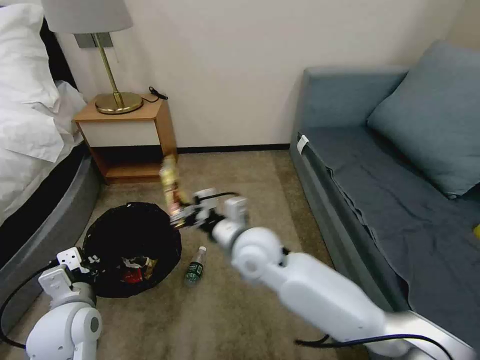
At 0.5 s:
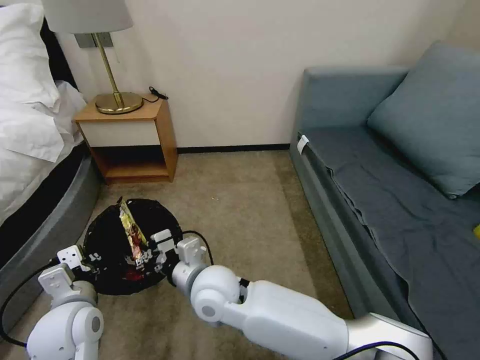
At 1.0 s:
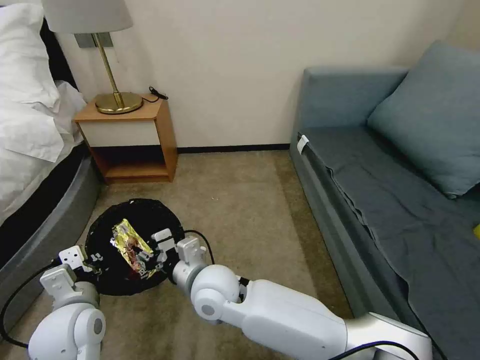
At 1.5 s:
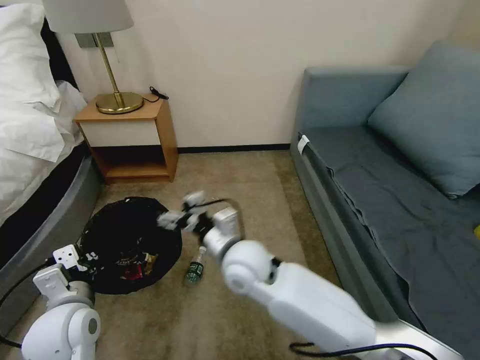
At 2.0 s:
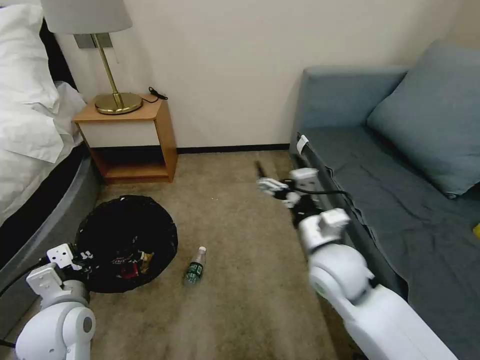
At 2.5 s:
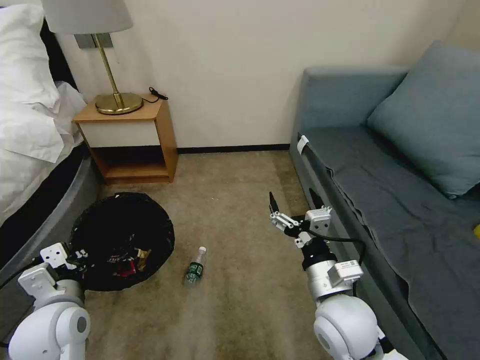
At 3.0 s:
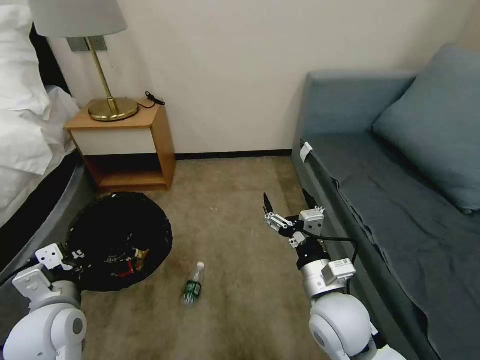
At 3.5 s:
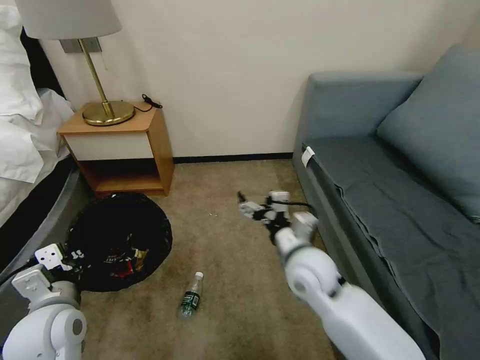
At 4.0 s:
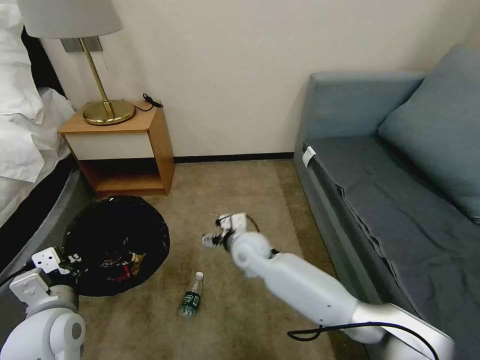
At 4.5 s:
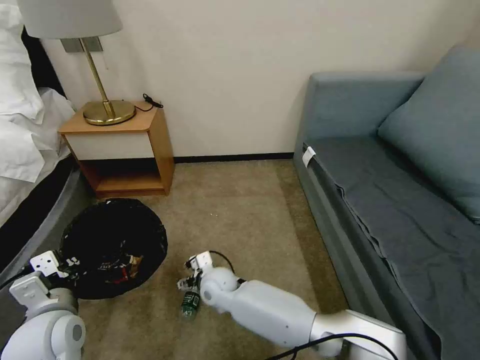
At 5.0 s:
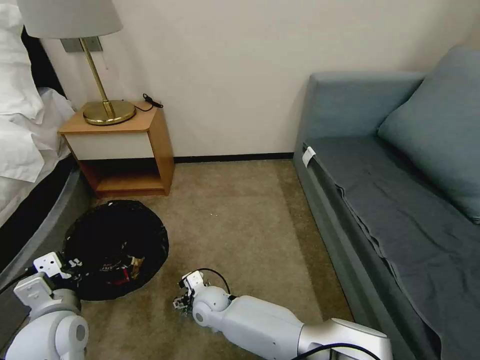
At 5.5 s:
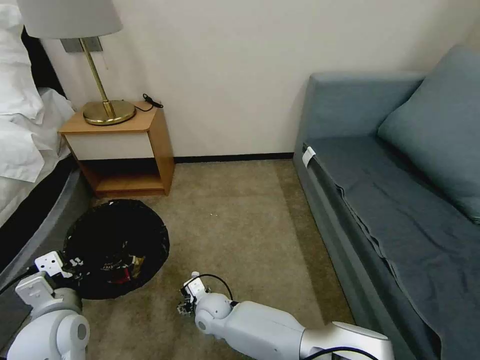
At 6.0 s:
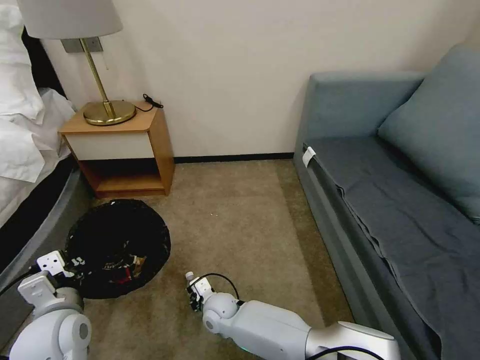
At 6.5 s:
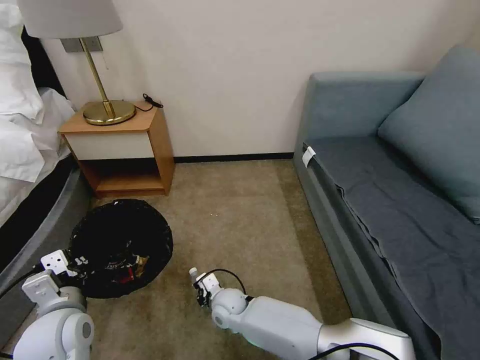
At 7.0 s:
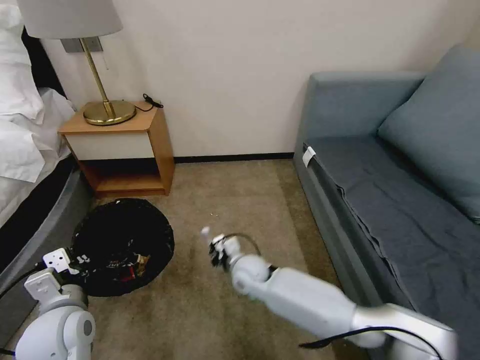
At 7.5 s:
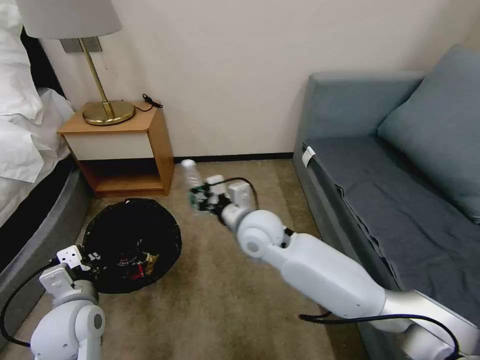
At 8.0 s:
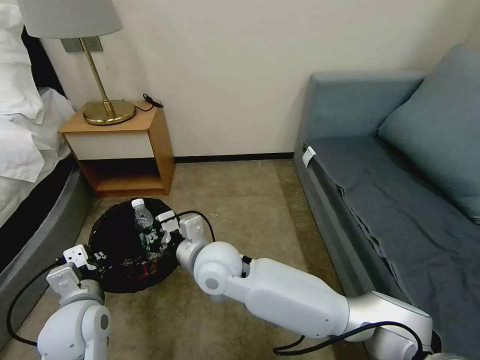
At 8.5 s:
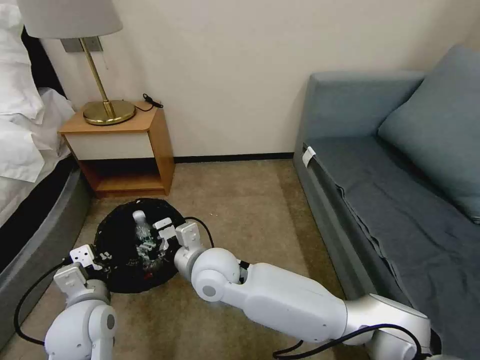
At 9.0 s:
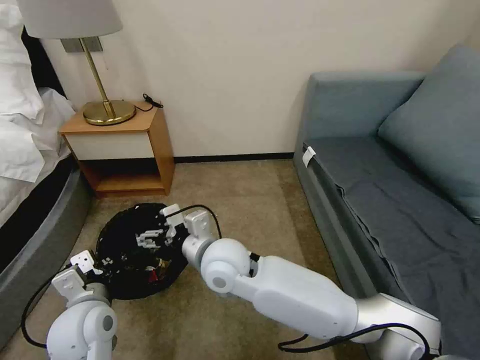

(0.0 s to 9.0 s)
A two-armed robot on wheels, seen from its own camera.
Task of the whole recording: Pick up the trash bin, then pick up the garbage on the floor and place it into the trash bin.
0.0 s - 2.0 s: The right gripper shifts roughly 15 cm to the right and backward, and opens up.
2.0 s - 4.5 s: The right gripper travels to the left and downward by roughly 30 cm.
4.5 s - 7.0 s: The right gripper moves to the right, approximately 10 cm, and closes.
7.0 s - 9.0 s: The right gripper shifts some 20 cm upward, and opens up.

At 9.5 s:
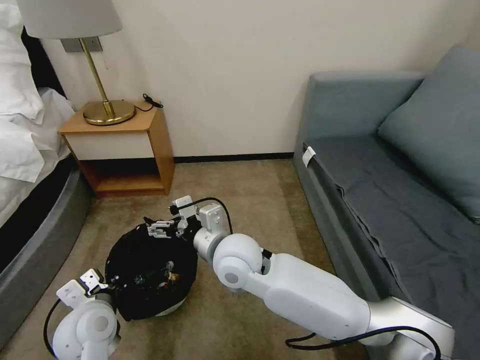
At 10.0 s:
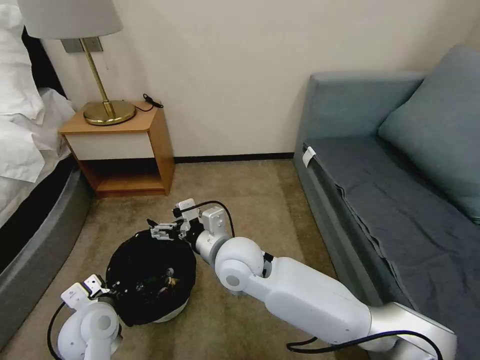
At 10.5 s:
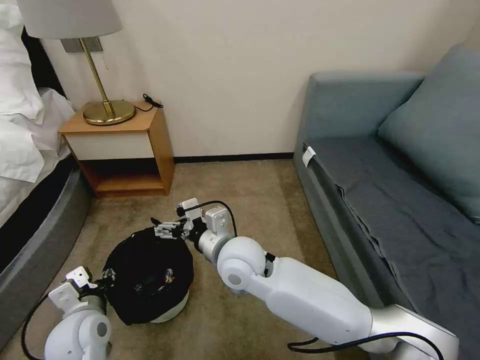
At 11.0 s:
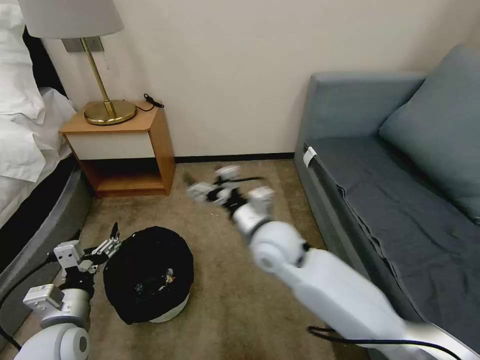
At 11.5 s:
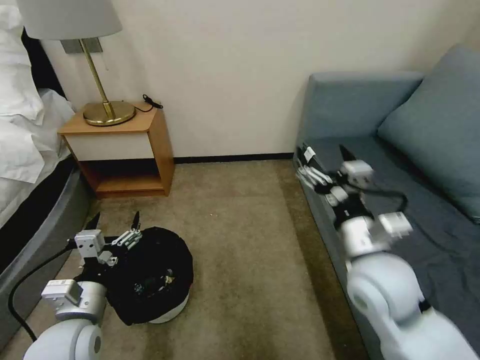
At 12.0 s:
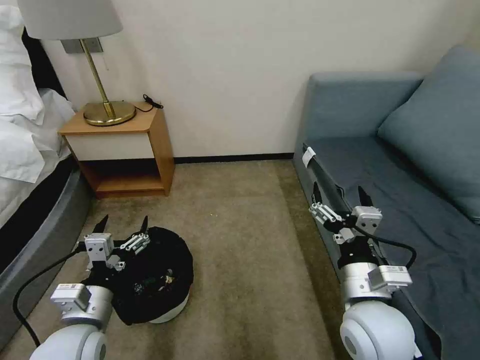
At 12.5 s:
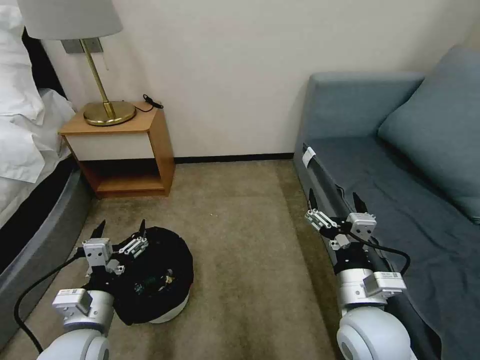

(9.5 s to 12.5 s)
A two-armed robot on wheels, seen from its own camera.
Task of the whole recording: Pick up the trash bin, then pick up the garbage on the floor and place it into the trash bin.
9.5 s - 11.0 s: The left gripper shifts by approximately 5 cm, and opens. Meanwhile the right gripper travels to the right by approximately 5 cm.
11.0 s - 12.5 s: The right gripper goes about 20 cm backward and to the right. The left gripper shifts approximately 5 cm to the right.

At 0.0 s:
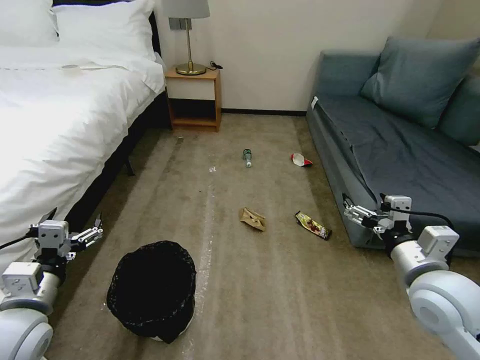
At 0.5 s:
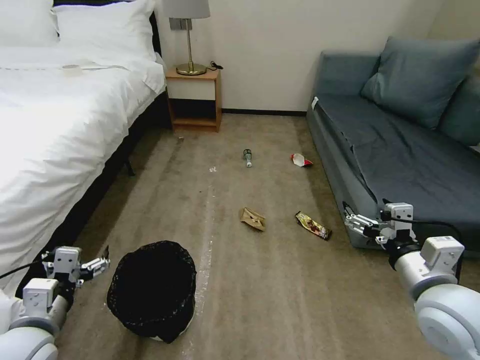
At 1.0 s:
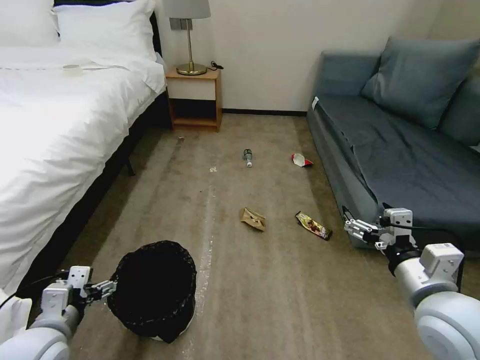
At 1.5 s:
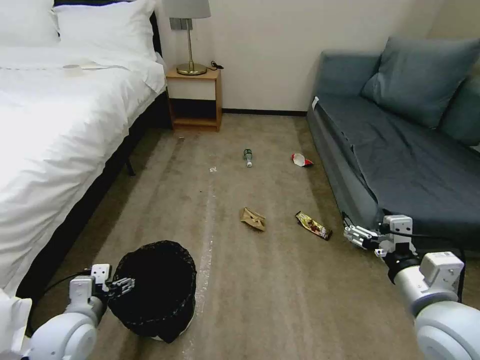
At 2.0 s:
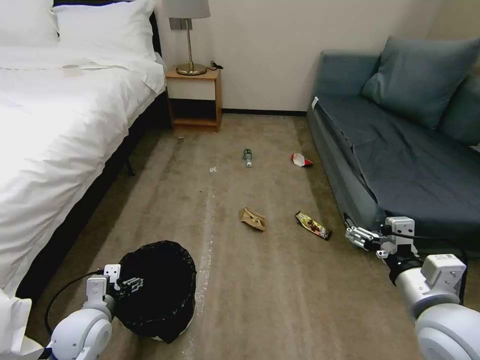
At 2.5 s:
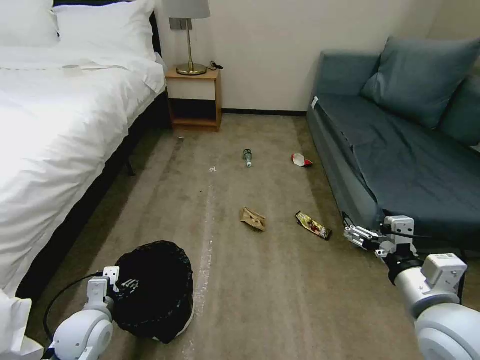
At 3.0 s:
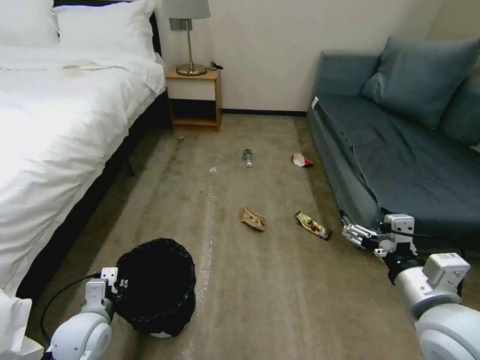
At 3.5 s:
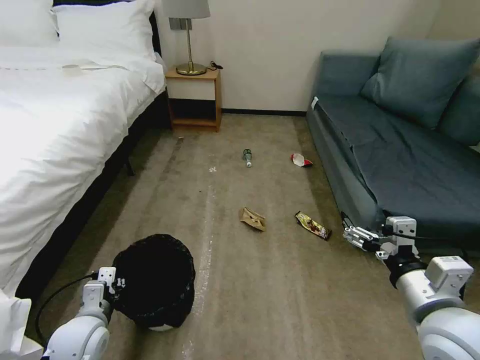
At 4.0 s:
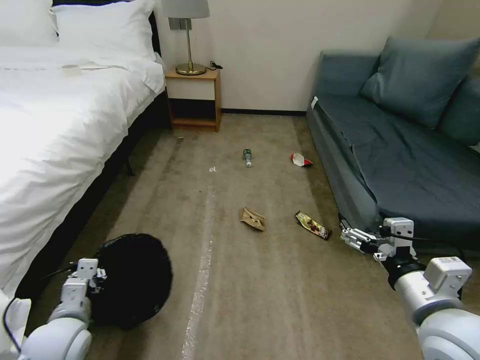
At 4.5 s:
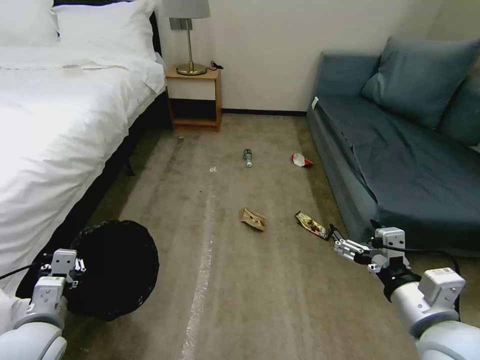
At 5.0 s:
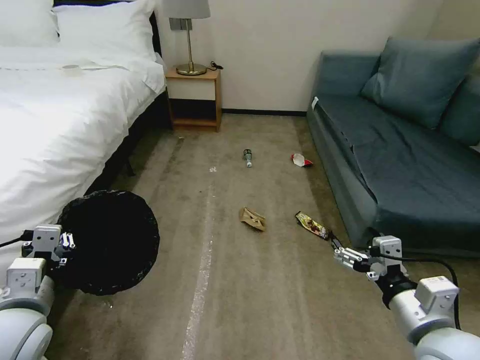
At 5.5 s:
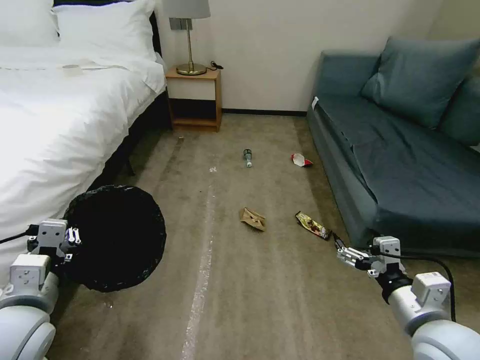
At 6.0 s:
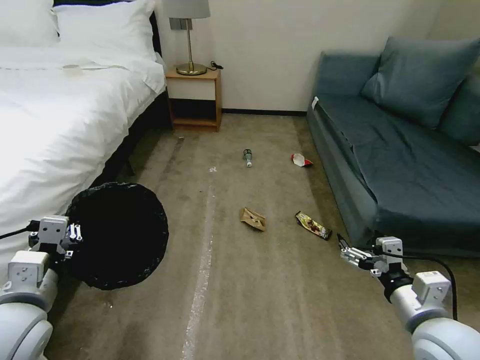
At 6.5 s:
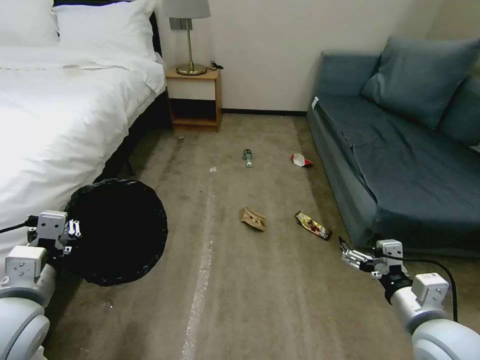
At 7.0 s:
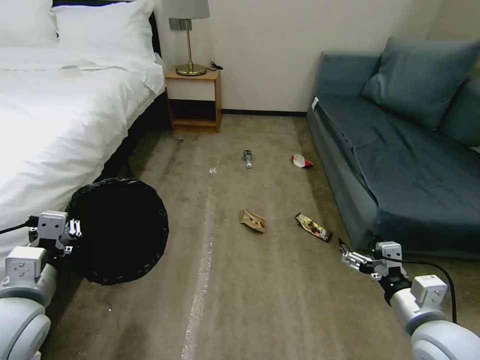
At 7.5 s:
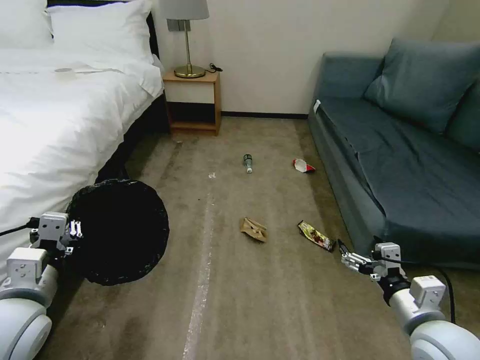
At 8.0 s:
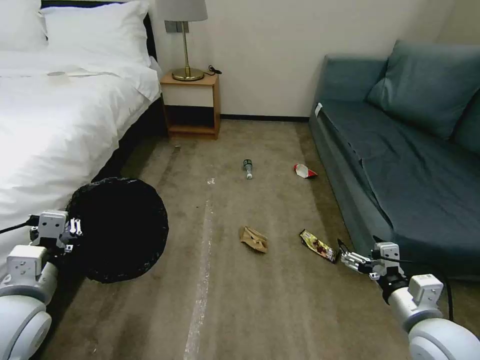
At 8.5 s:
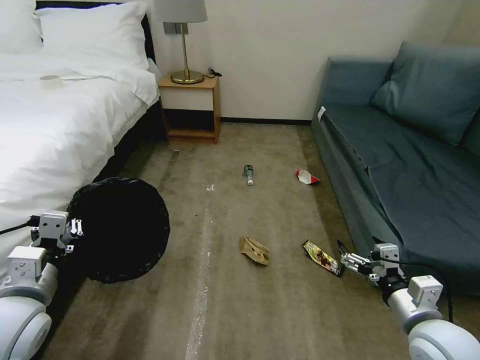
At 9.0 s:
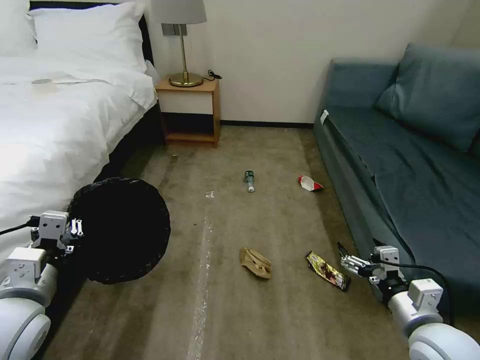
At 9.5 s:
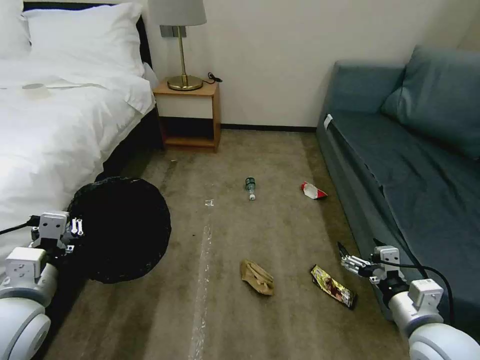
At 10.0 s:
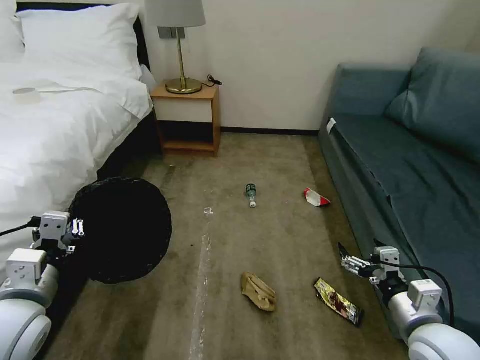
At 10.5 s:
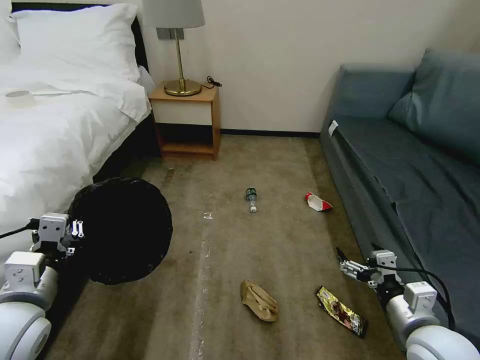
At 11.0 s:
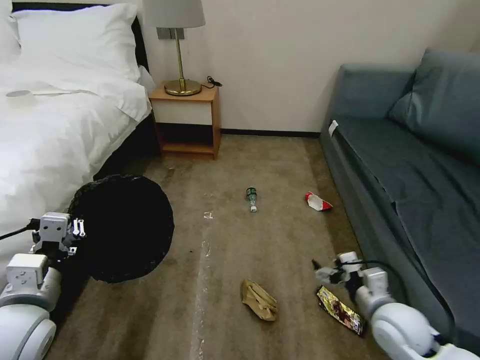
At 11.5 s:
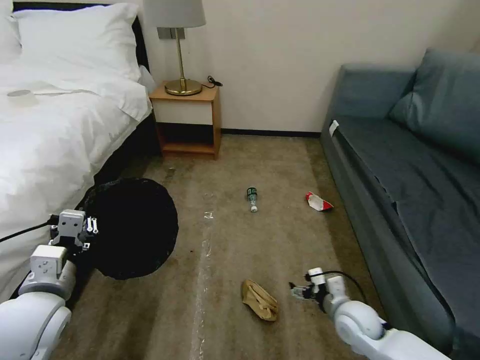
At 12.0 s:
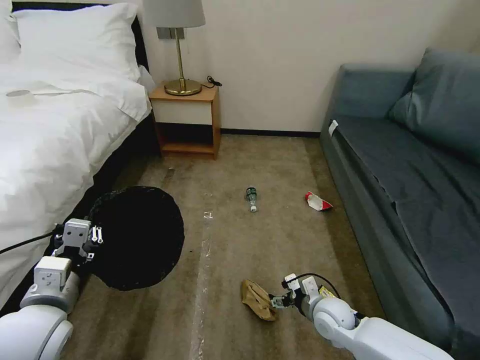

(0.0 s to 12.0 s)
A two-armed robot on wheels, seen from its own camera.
Task of the whole recording: Pick up the trash bin, then pick up the garbage on the floor and place it into the trash bin.
2.0 s - 4.0 s: The left gripper closes up.
4.0 s - 6.0 s: The right gripper shifts about 5 cm downward; the left gripper travels upward by about 15 cm.
6.0 s - 8.0 s: The grippers move only a little.
10.0 s - 12.0 s: The right gripper goes about 20 cm downward, to the left and forward.

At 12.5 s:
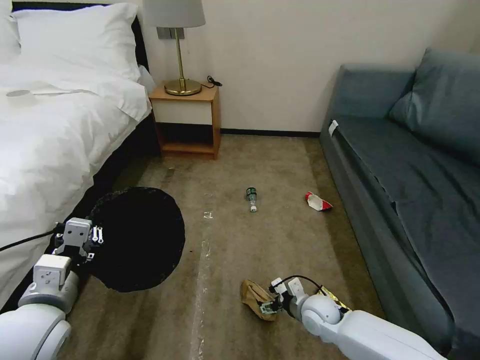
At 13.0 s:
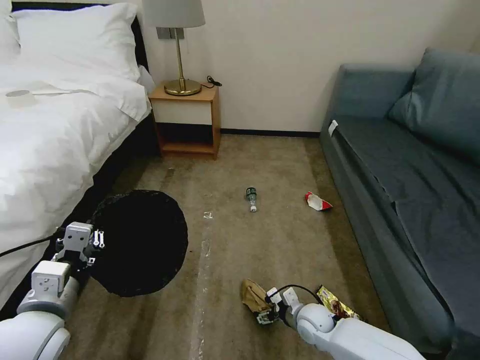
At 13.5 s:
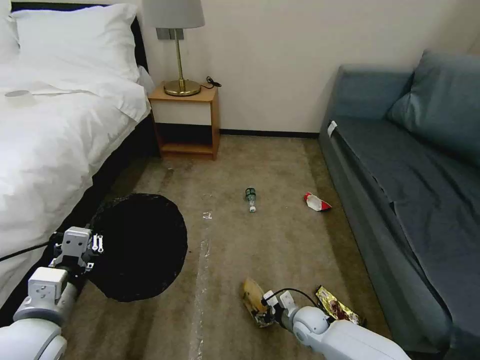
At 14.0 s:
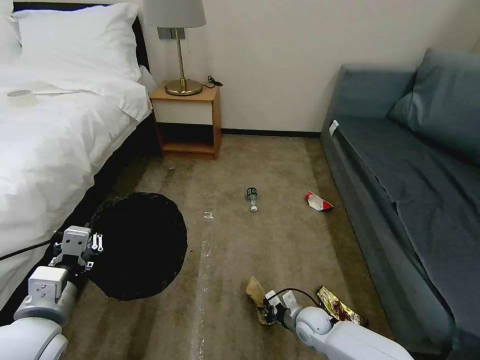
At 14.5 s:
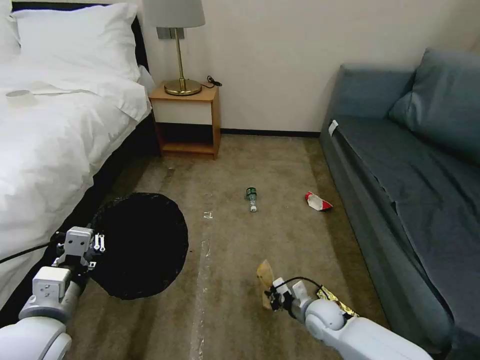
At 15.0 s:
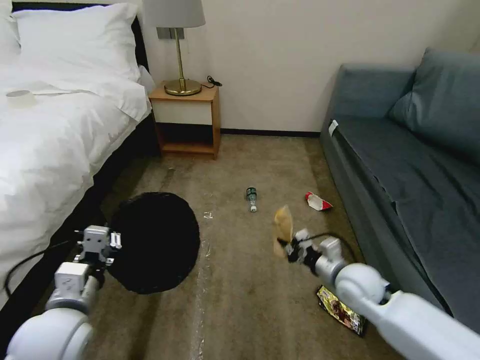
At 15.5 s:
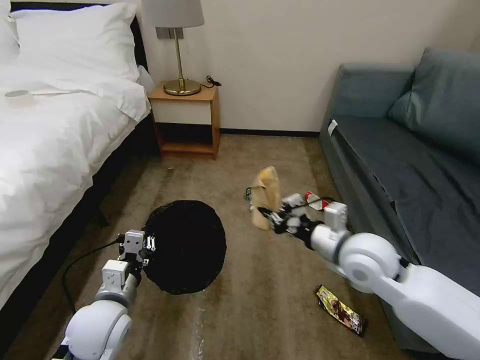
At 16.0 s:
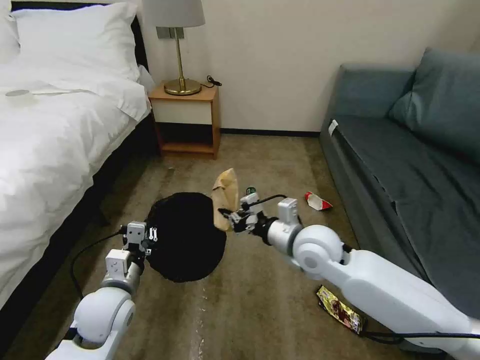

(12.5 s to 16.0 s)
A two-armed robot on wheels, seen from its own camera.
Task of the whole recording: Pick up the trash bin, then pick up the garbage on the floor and place it into the trash bin.
12.5 s - 14.5 s: The right gripper closes up.
14.5 s - 16.0 s: The right gripper goes approximately 25 cm upward. Meanwhile the left gripper shifts roughly 10 cm downward, forward and to the right.
